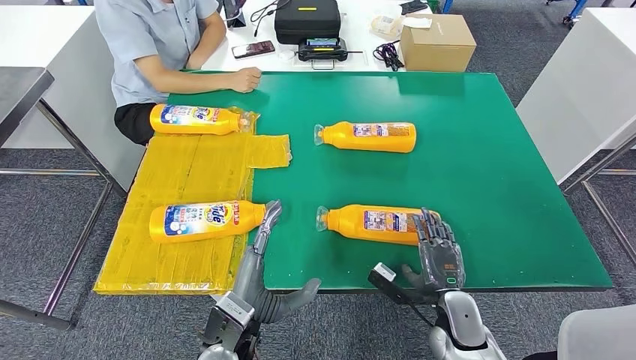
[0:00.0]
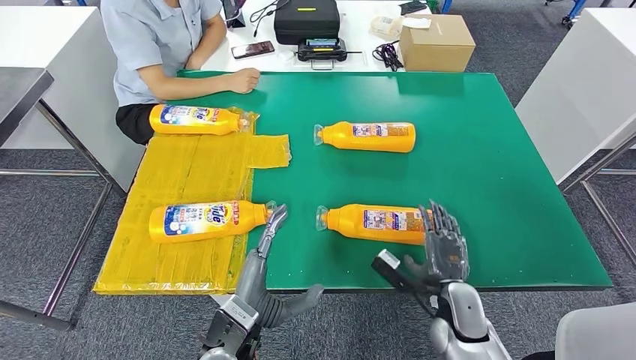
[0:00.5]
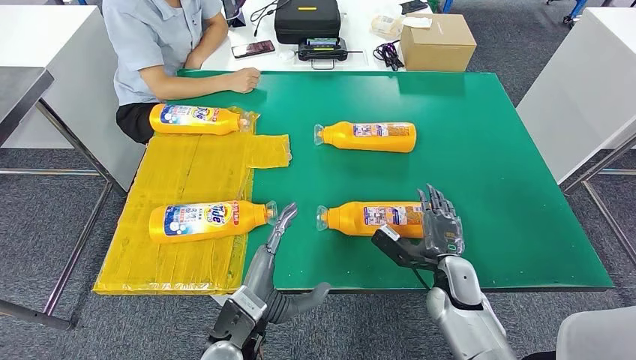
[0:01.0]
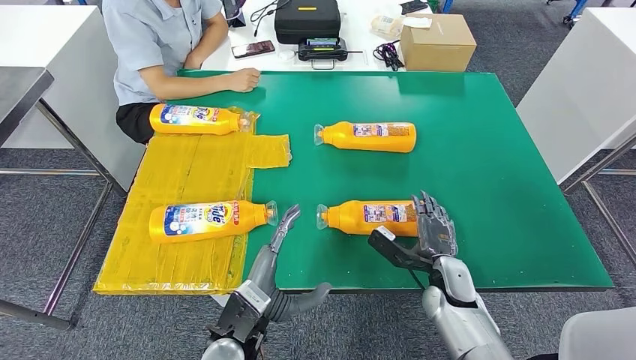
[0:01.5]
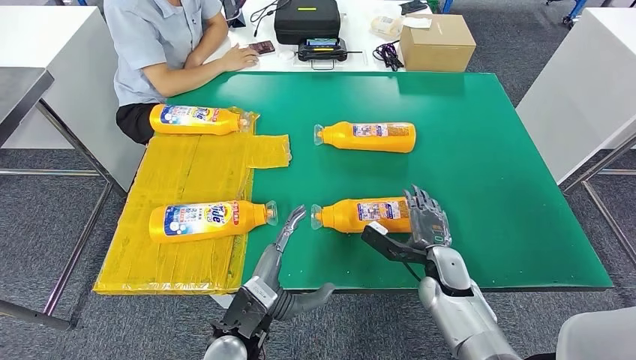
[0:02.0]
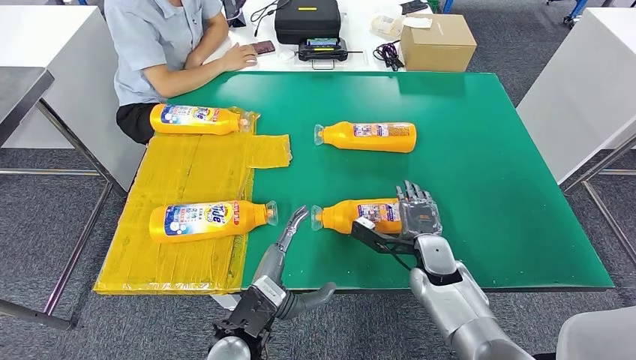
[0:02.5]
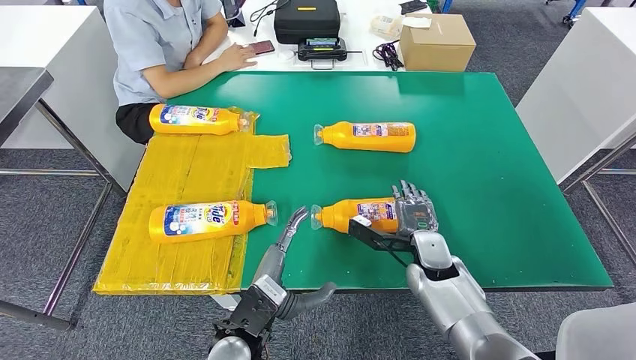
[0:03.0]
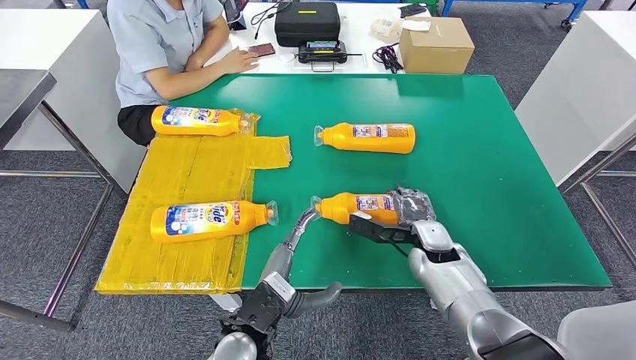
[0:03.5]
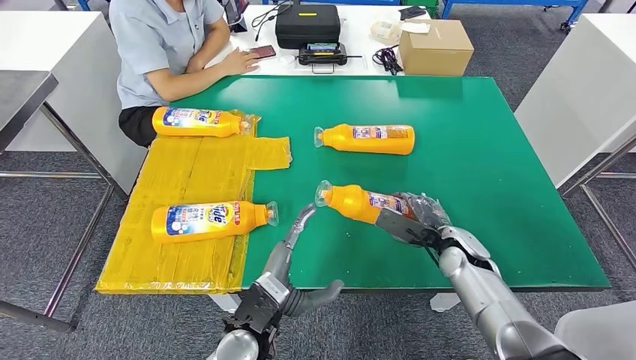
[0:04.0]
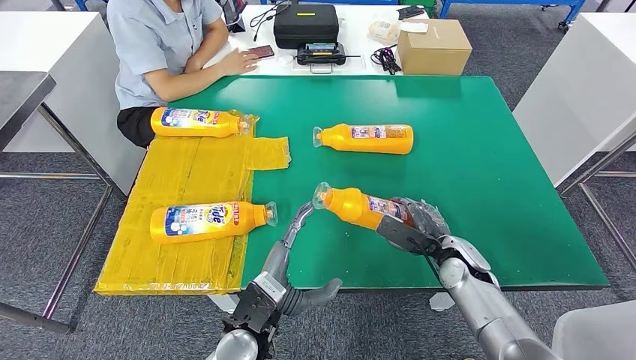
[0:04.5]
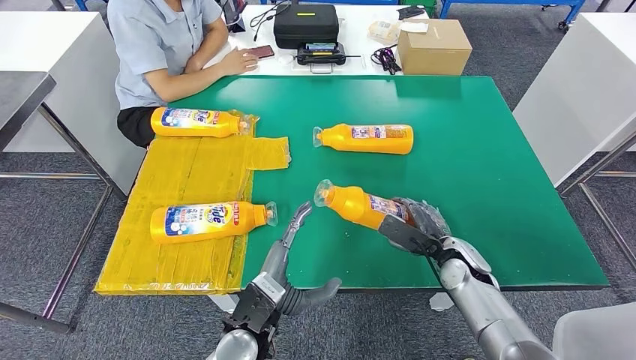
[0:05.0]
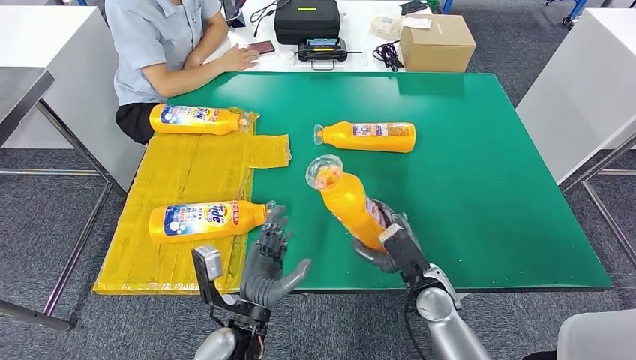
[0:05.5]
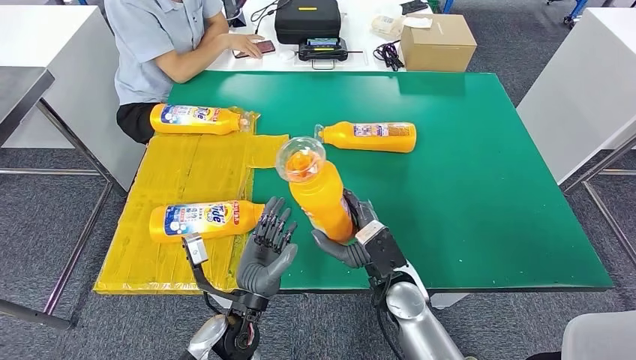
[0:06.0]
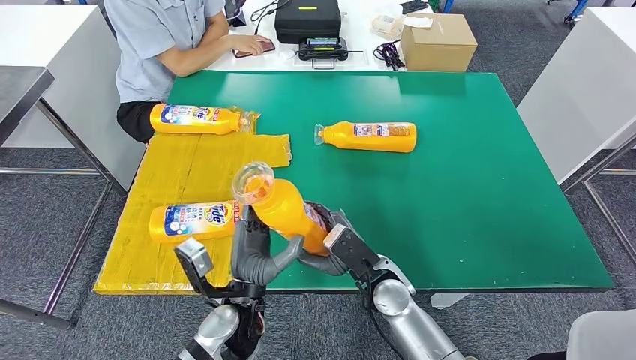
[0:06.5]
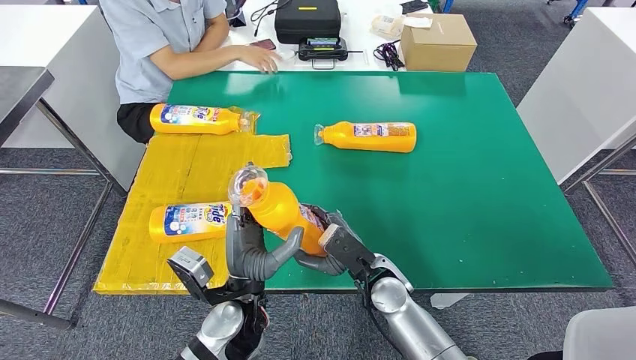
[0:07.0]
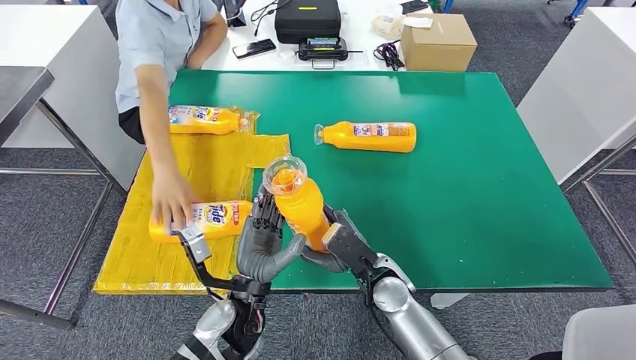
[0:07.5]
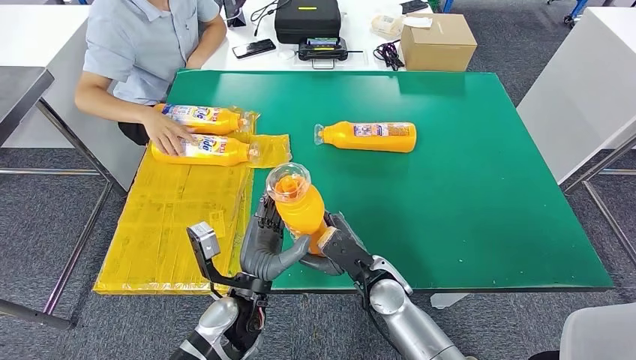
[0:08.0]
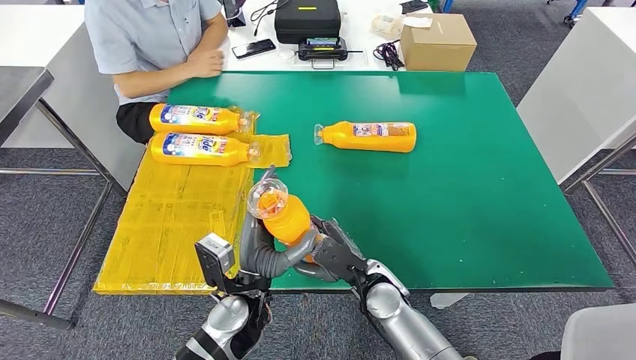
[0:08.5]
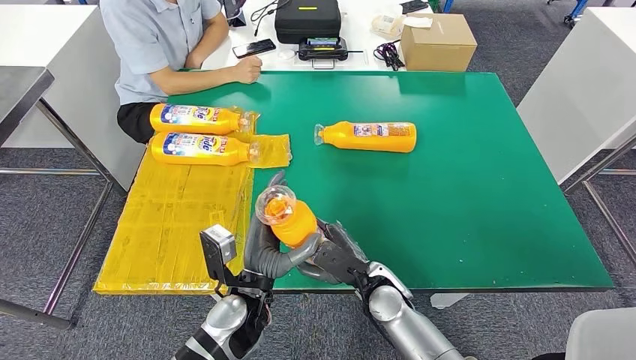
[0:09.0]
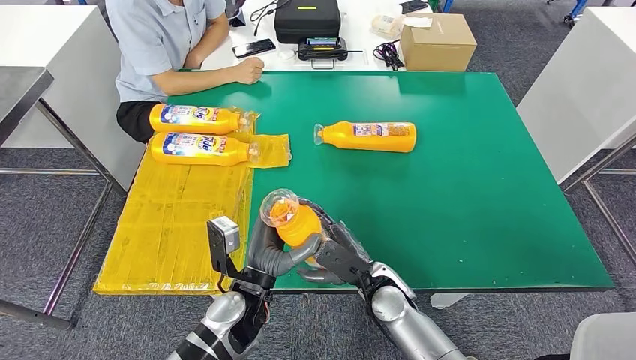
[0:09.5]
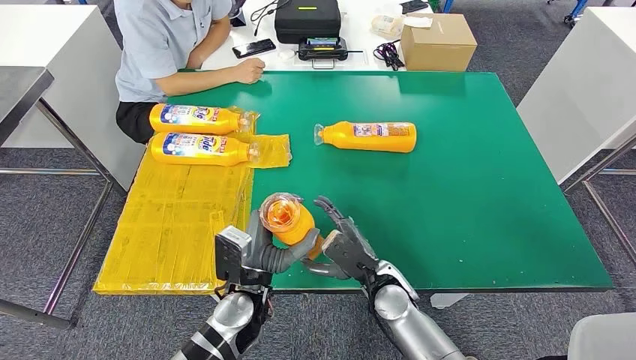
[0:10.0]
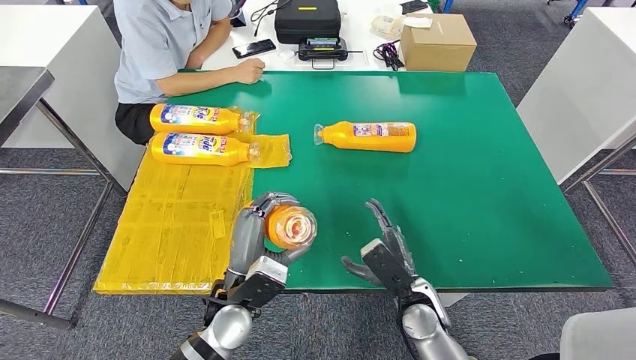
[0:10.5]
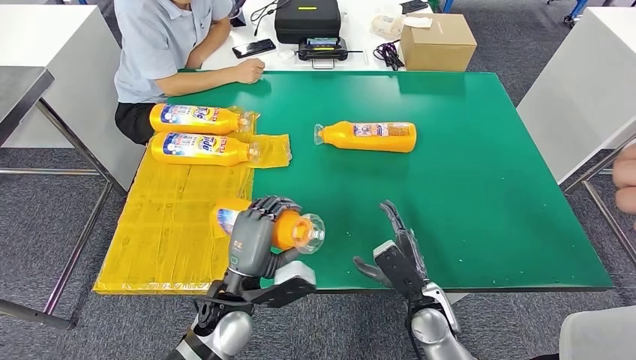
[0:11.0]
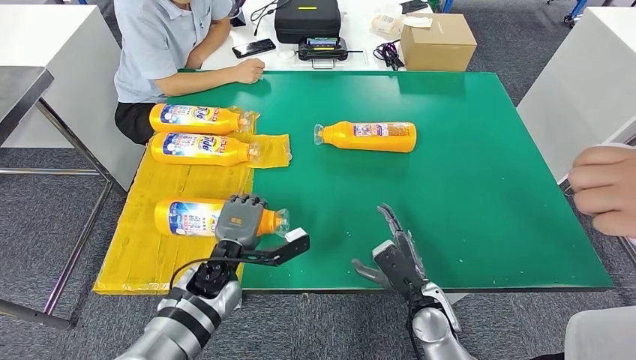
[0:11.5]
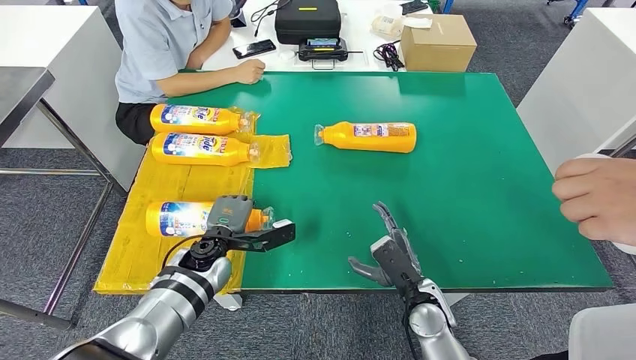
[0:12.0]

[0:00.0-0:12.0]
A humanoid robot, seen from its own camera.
Step, 0:00.0 to 0:07.0: Pick up the fast-moving consumer goods bottle from the table.
0:00.0 to 0:02.0: The right hand shifts about 10 cm forward.
0:10.0 to 0:12.0: The right hand shifts about 5 cm to the right. Meanwhile the left hand heads forward and to the left, covering approximately 10 cm.

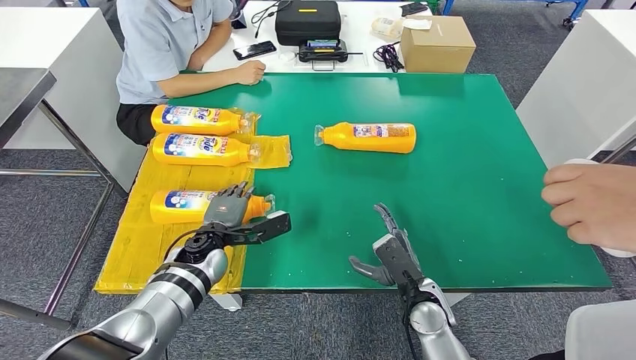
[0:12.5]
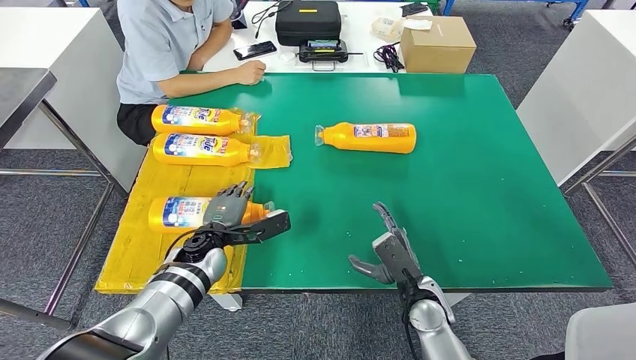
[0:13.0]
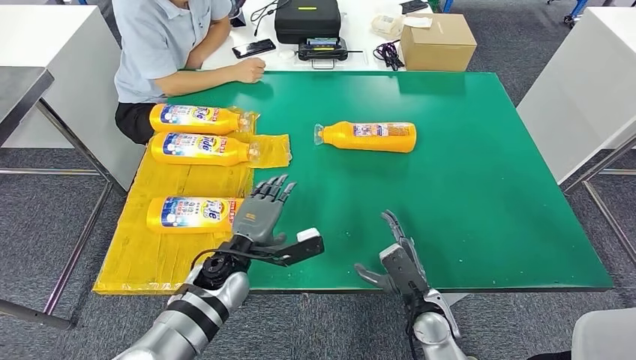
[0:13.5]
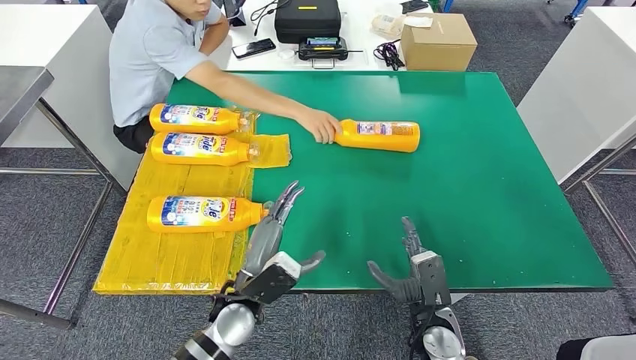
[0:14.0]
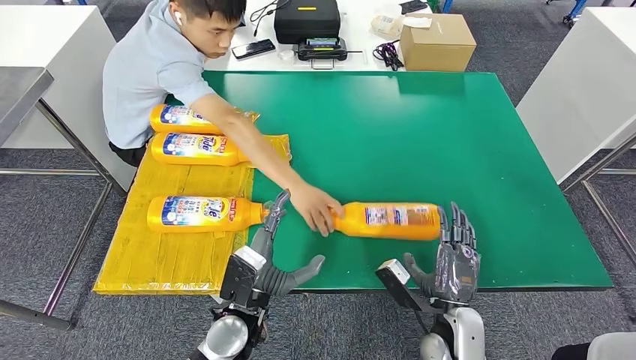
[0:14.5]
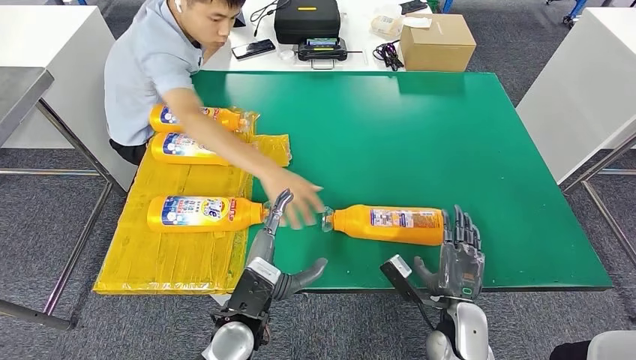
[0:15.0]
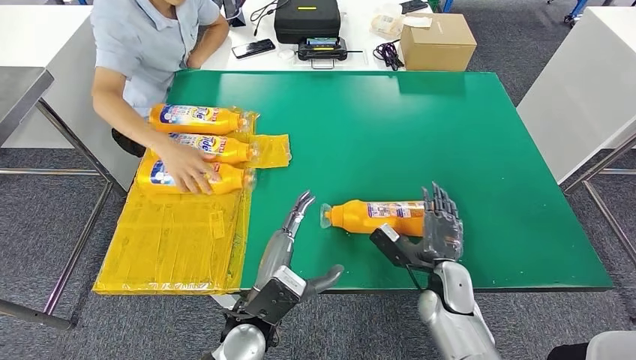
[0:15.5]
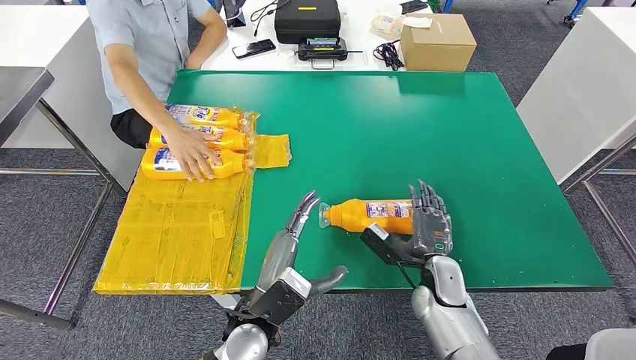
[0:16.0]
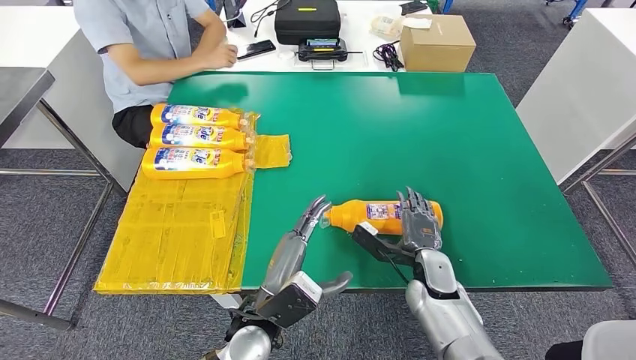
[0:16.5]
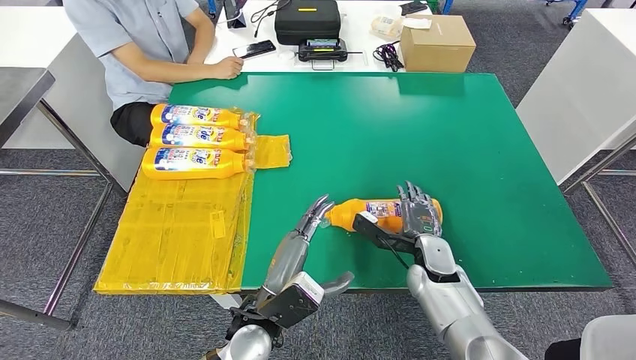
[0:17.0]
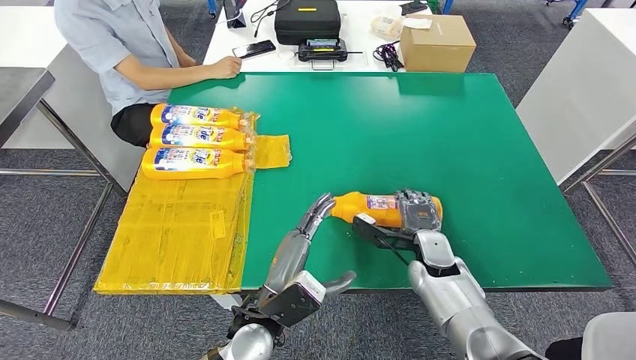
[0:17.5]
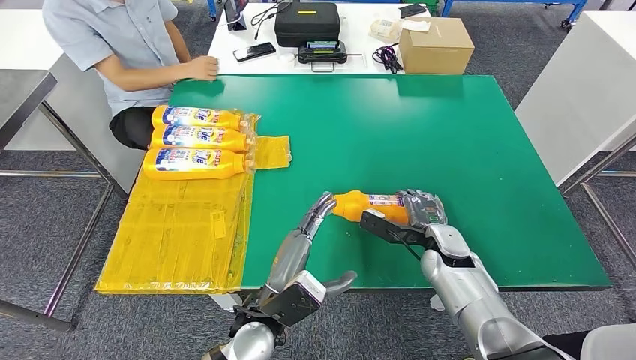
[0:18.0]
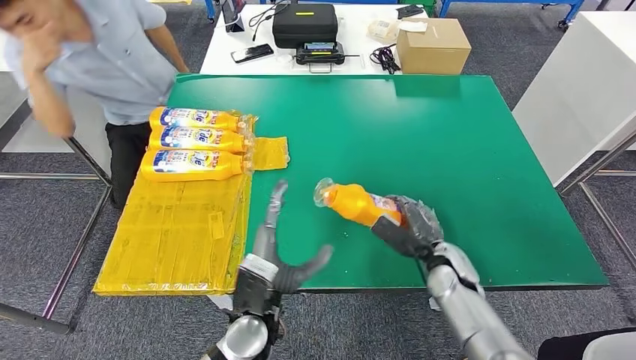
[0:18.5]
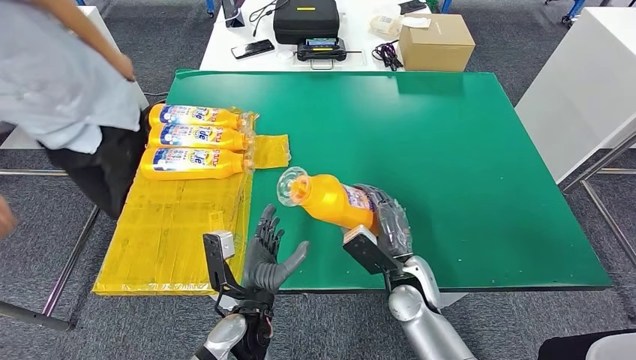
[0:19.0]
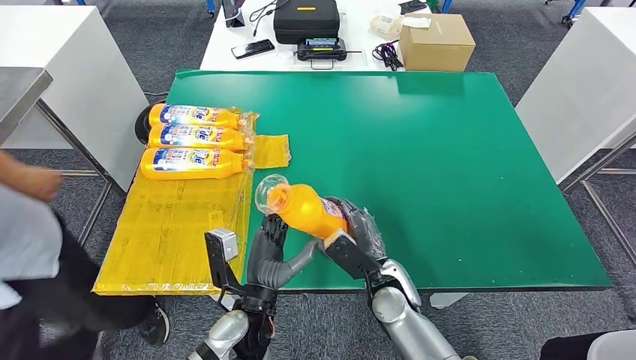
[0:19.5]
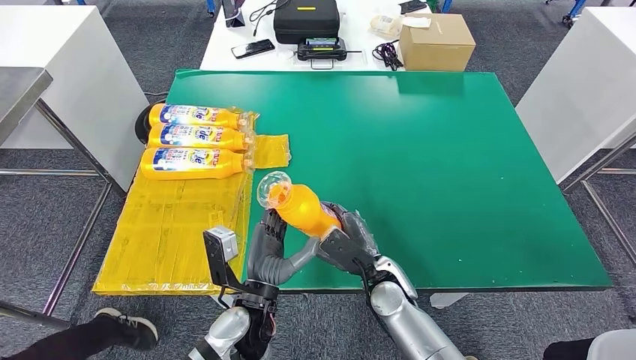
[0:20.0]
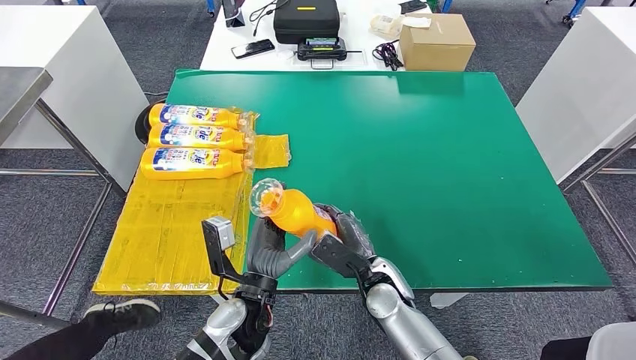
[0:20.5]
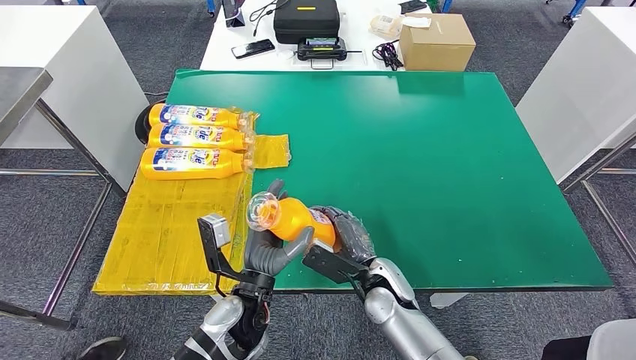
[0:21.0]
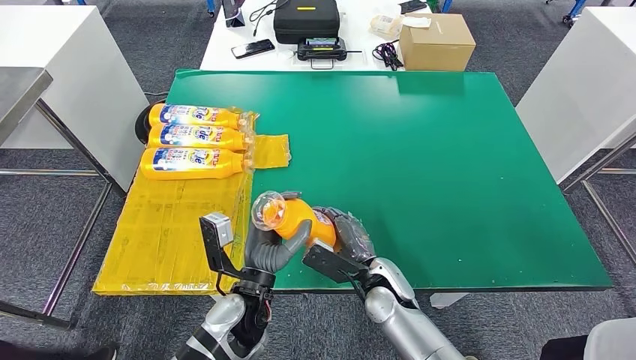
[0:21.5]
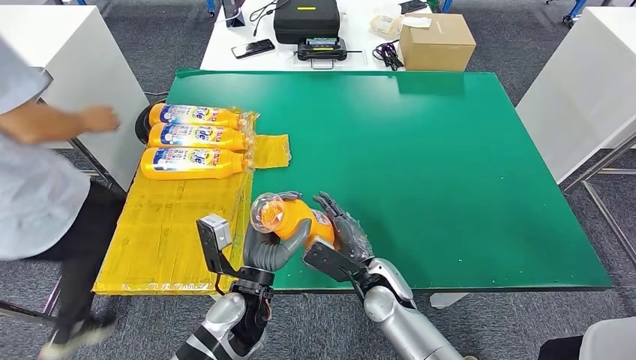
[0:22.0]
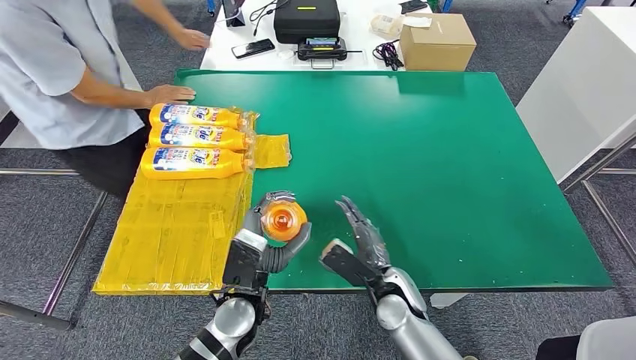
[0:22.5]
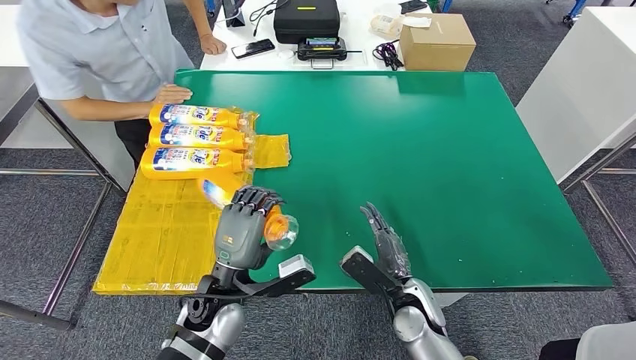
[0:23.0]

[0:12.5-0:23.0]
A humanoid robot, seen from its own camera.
Step, 0:12.5 to 0:15.0: Flip the fast-moving consumer goods bottle to the front side.
Step, 0:15.5 to 0:19.5: Pick up the fast-moving consumer goods bottle from the table.
0:21.0 to 0:23.0: The left hand travels to the left by about 5 cm. Meanwhile the right hand shifts approximately 5 cm to the right.
